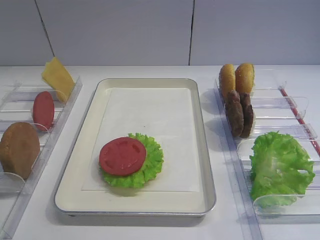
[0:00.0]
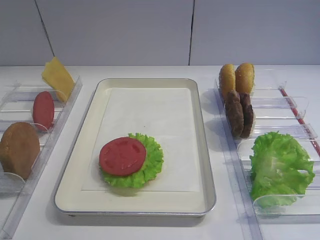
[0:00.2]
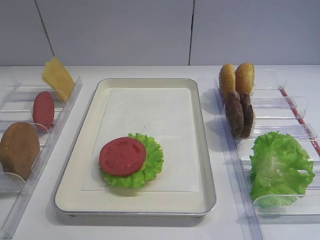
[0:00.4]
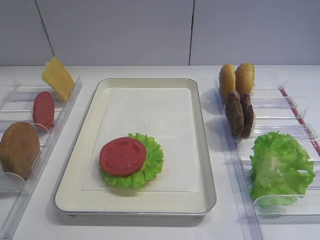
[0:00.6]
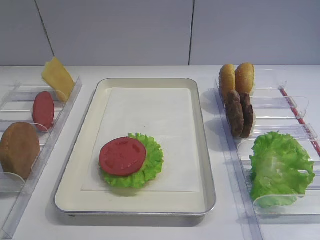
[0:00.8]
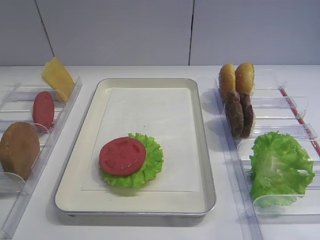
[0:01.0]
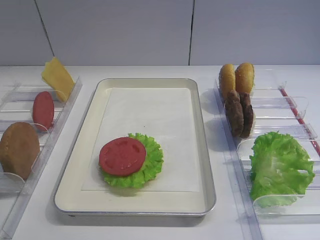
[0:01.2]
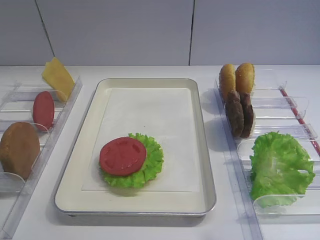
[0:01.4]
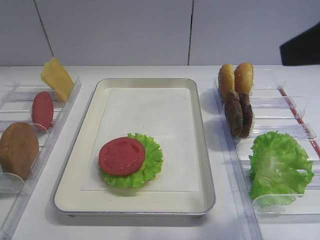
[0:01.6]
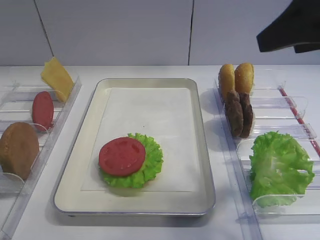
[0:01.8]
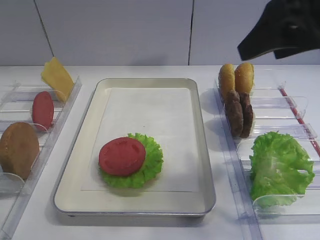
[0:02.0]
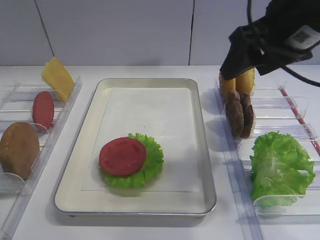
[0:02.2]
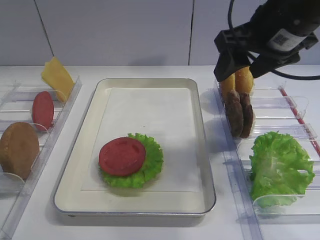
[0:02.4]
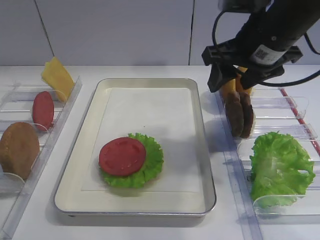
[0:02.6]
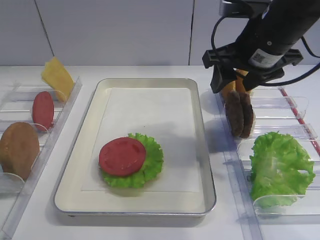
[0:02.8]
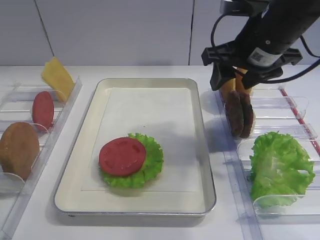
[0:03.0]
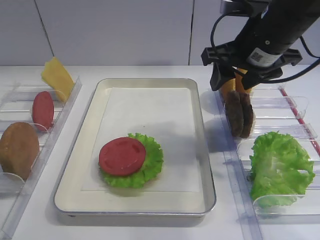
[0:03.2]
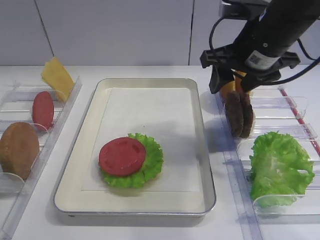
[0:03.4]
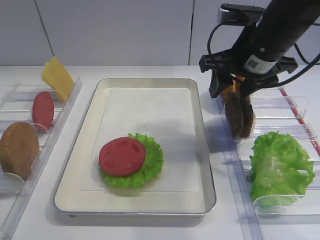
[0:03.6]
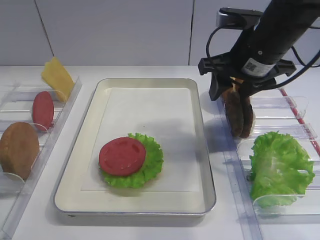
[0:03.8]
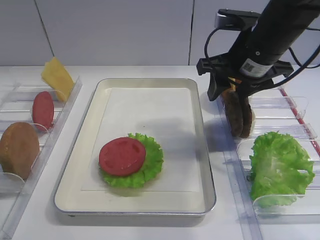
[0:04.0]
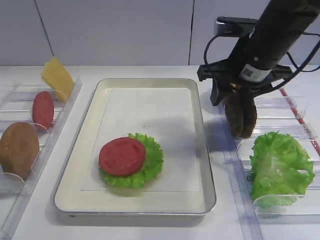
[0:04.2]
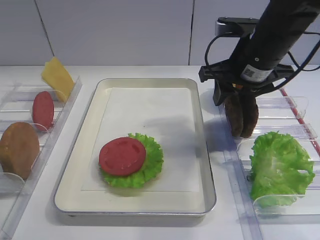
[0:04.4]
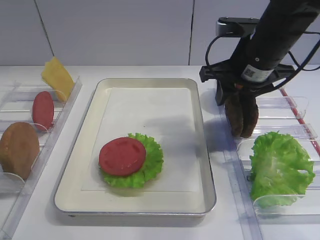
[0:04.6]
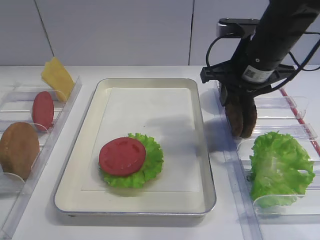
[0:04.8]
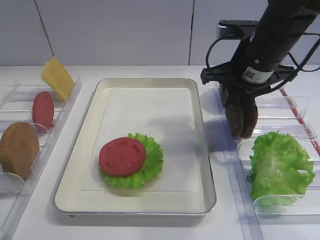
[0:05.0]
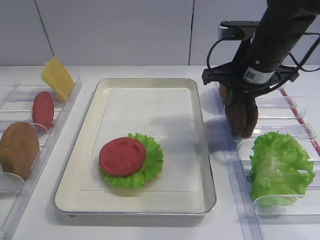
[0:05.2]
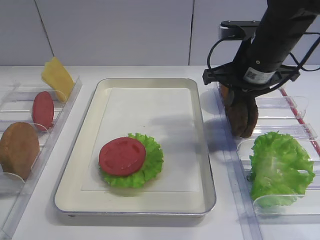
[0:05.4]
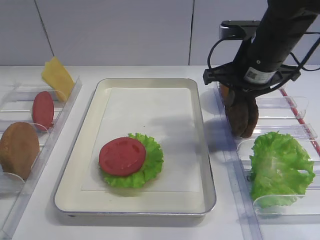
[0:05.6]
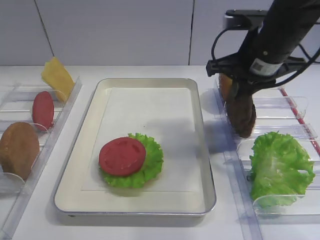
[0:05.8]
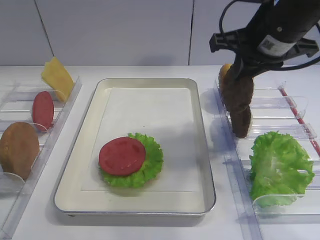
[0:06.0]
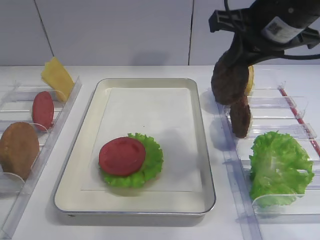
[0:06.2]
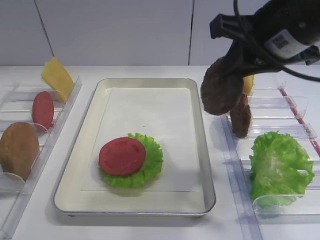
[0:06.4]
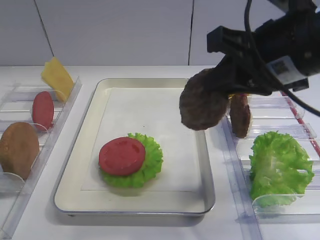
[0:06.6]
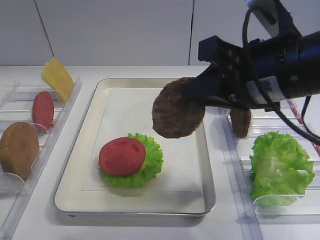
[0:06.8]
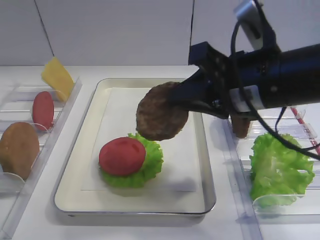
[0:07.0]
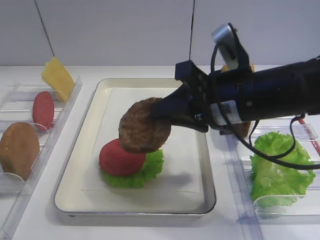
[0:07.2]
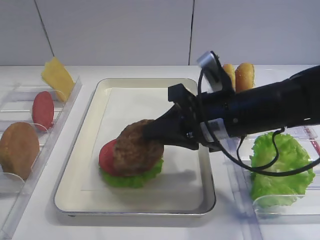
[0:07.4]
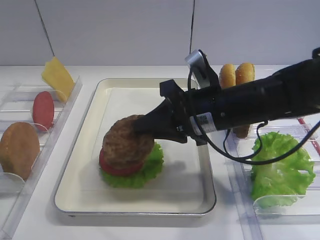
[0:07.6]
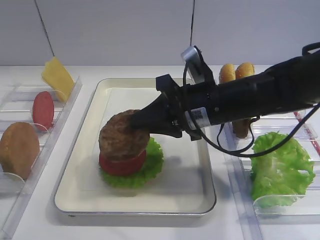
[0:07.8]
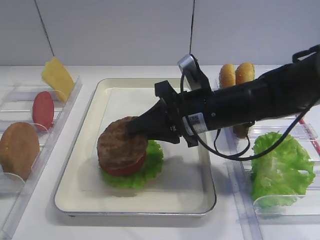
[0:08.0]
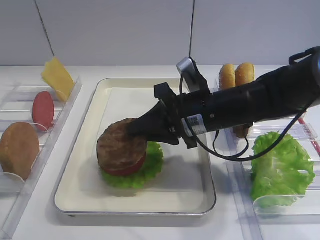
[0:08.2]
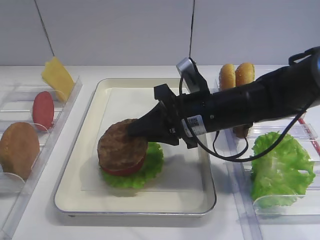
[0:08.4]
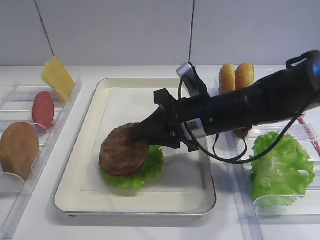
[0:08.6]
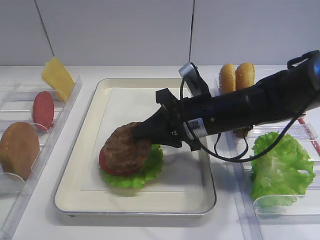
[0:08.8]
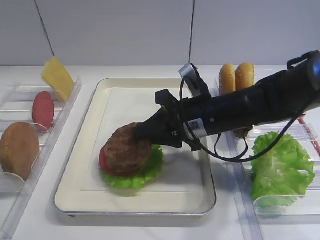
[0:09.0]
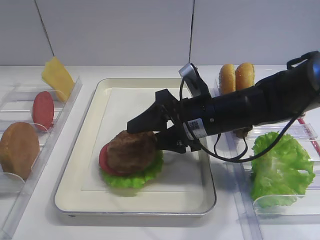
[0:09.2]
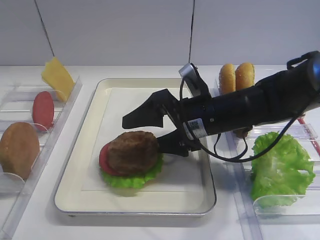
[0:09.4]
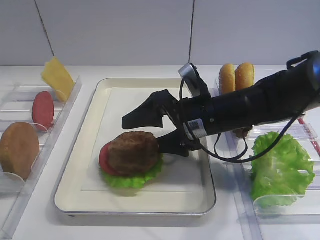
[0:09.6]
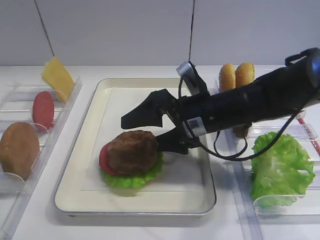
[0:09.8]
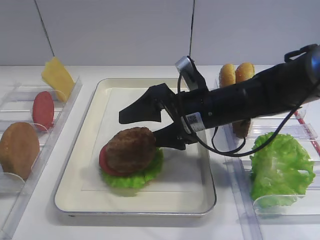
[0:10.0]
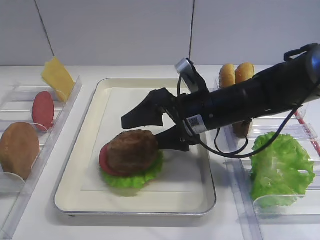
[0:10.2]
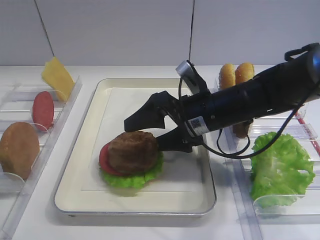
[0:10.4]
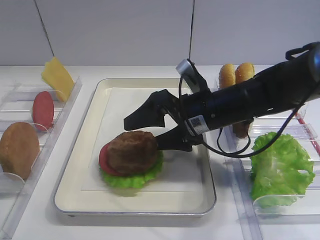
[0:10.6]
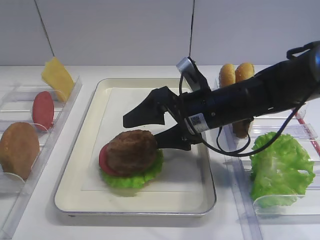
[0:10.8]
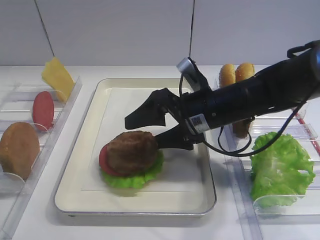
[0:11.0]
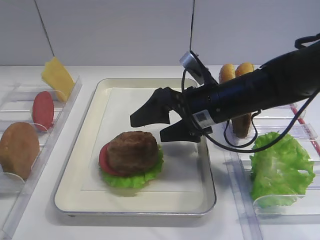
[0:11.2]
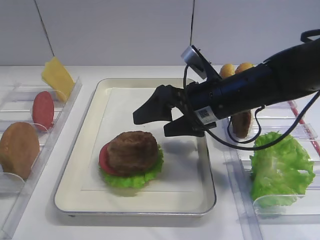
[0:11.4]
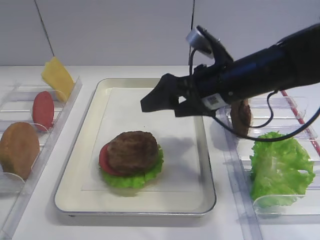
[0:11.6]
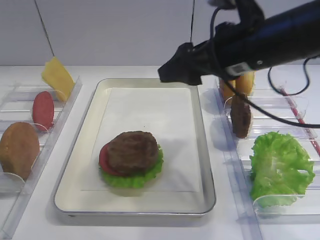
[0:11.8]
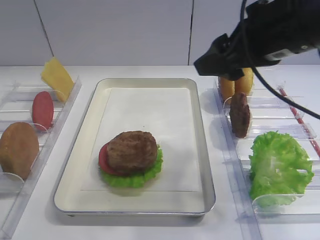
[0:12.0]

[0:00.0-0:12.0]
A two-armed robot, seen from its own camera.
Step, 0:00.0 to 0:06.2: Pick up the cutlet with the right gripper.
Step, 0:06.4 to 0:11.6: Place the cutlet on the tomato slice with the right gripper.
0:01.6 to 0:03.0: The right gripper shifts some 20 cm forward and downward.
0:03.0 to 0:04.4: The grippers stay close to where they were, moving slightly.
0:04.4 to 0:06.0: The right gripper goes roughly 5 cm upward, and closes up.
0:06.0 to 0:07.6: The right gripper shifts some 15 cm downward and to the left.
0:07.6 to 0:09.0: The grippers stay close to where they were, moving slightly.
0:09.0 to 0:10.4: The right gripper opens its fingers.
0:10.4 to 0:12.0: The right gripper moves upward and to the right, approximately 15 cm.

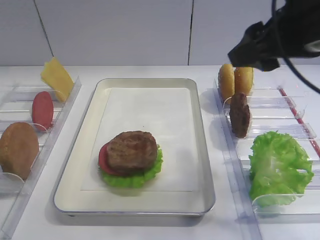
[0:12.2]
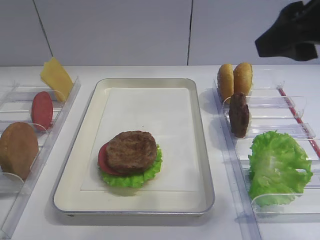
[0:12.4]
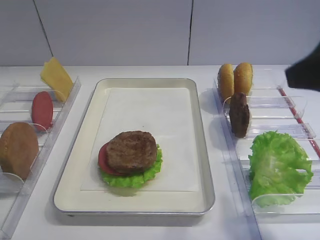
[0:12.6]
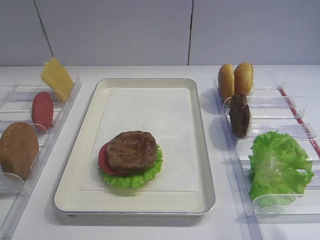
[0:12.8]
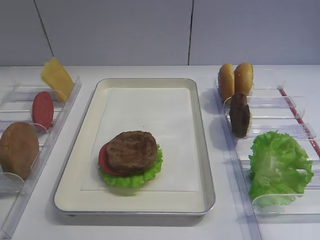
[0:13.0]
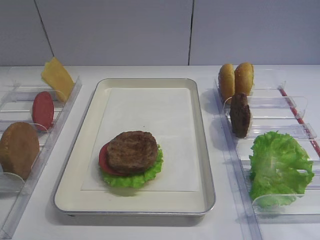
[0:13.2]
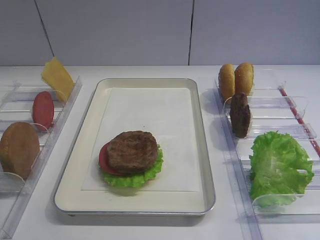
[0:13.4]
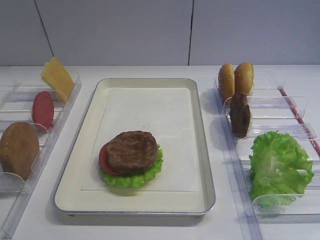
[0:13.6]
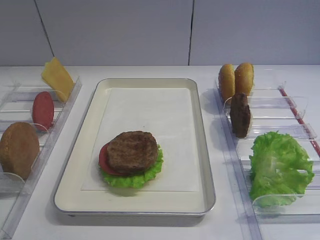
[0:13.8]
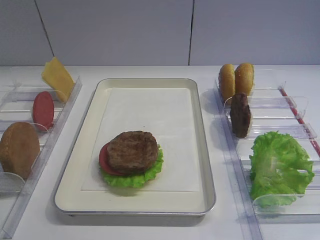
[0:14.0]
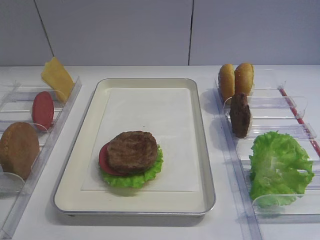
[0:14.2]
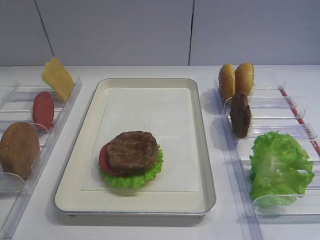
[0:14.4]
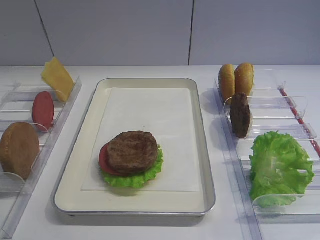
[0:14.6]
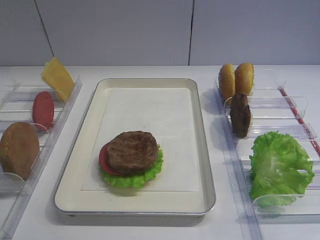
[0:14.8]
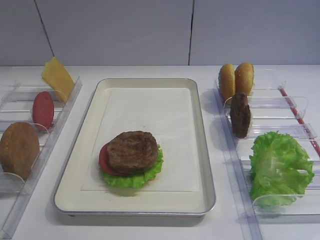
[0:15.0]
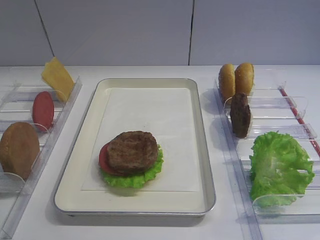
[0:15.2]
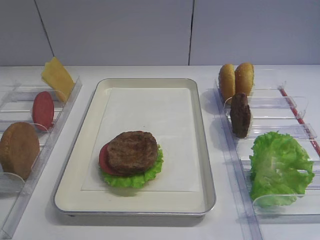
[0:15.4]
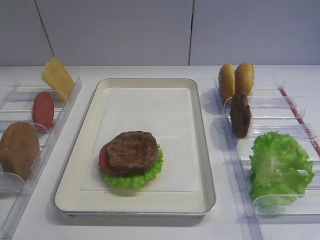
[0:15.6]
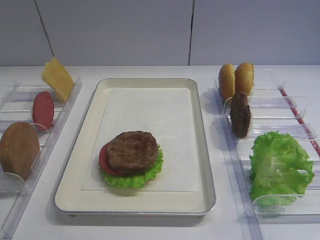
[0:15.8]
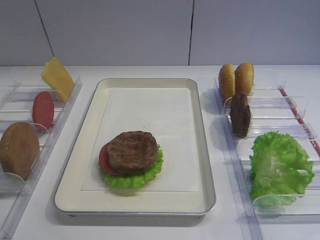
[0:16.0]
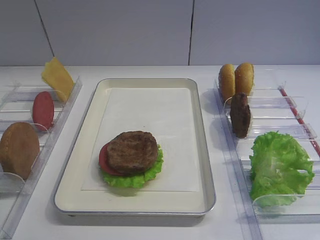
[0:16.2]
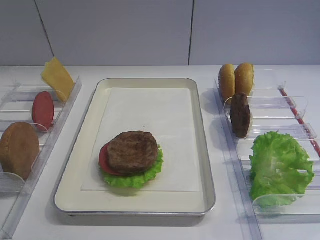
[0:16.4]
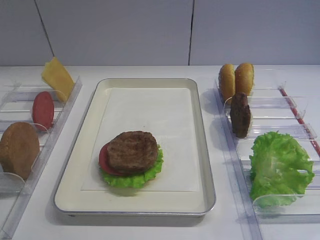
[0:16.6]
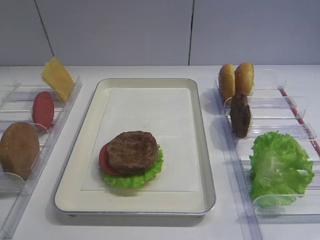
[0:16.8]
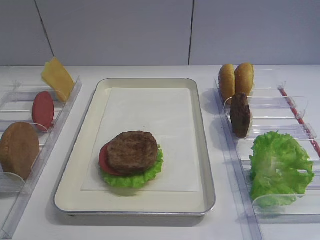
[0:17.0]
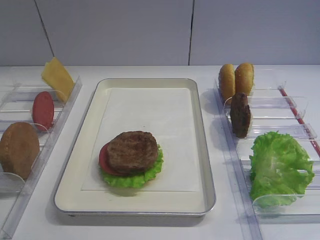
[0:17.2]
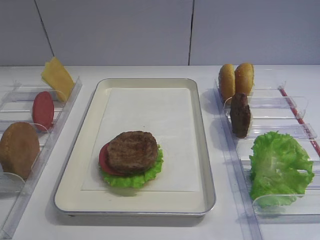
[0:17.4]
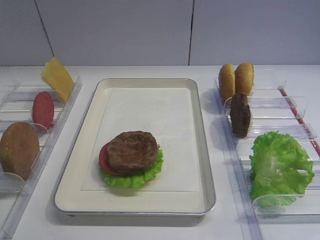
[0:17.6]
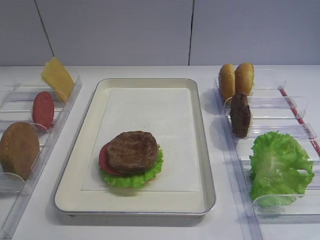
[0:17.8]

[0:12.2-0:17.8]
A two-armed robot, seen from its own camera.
0:12.2 to 0:13.6: The right gripper shifts about 20 cm backward.
0:13.6 to 0:17.8: Both grippers stay put.

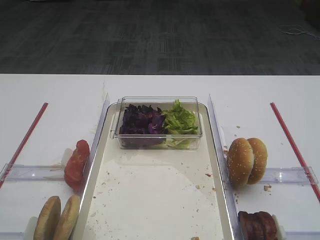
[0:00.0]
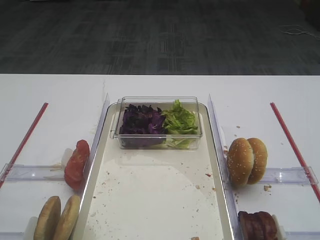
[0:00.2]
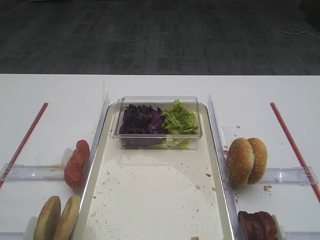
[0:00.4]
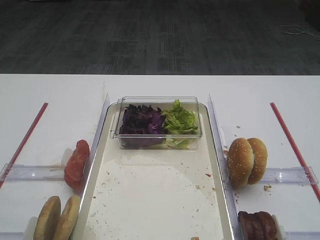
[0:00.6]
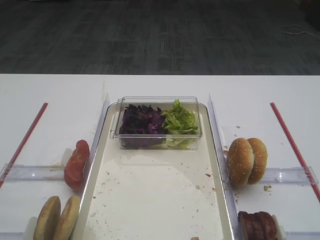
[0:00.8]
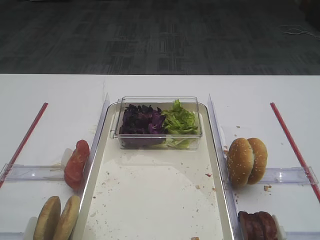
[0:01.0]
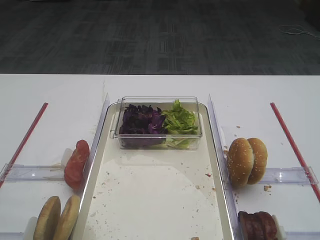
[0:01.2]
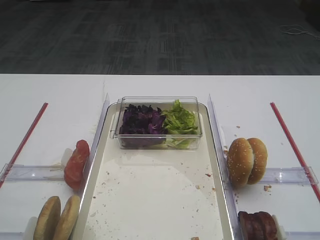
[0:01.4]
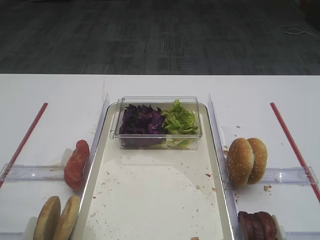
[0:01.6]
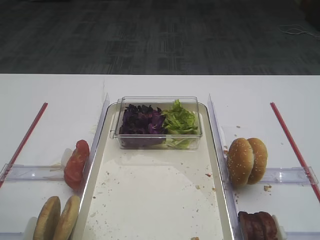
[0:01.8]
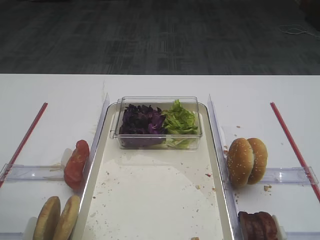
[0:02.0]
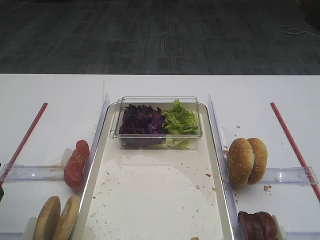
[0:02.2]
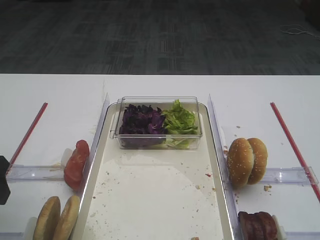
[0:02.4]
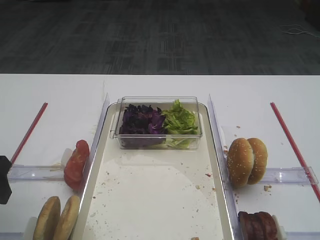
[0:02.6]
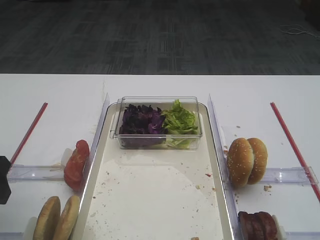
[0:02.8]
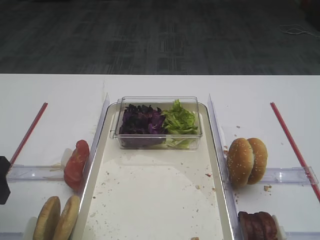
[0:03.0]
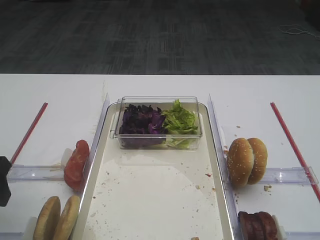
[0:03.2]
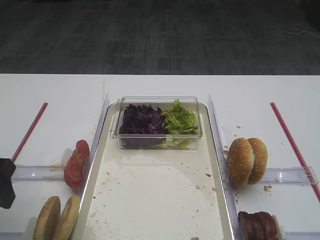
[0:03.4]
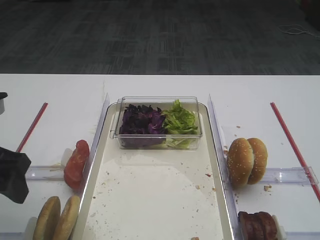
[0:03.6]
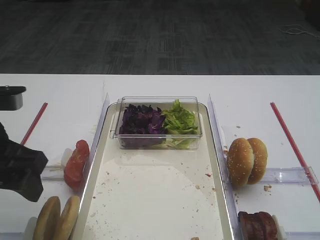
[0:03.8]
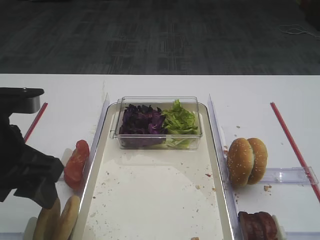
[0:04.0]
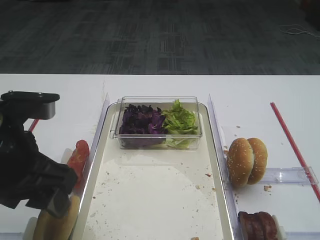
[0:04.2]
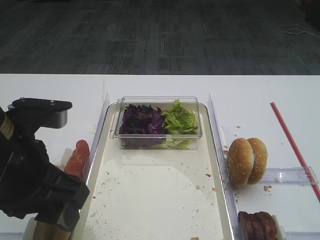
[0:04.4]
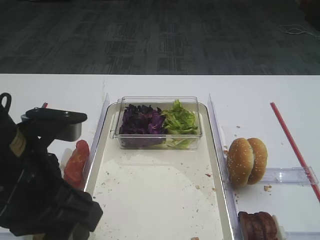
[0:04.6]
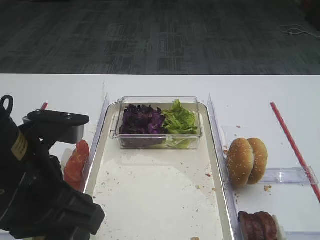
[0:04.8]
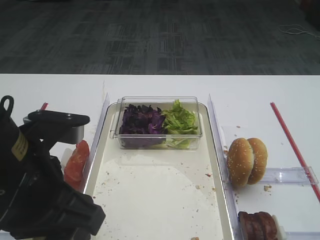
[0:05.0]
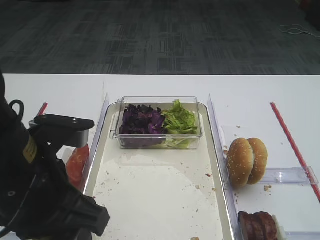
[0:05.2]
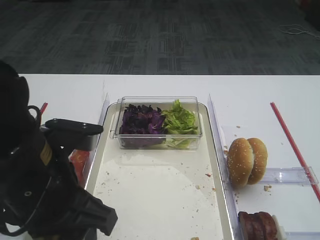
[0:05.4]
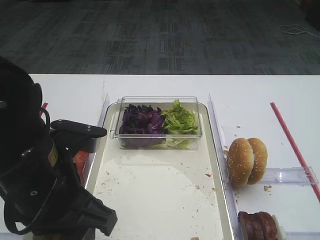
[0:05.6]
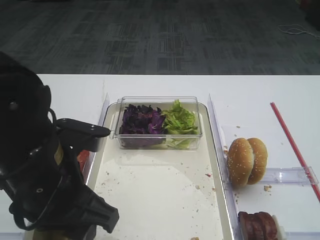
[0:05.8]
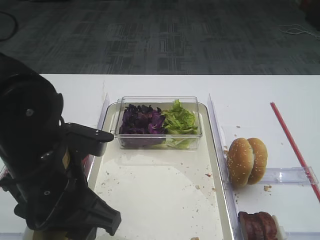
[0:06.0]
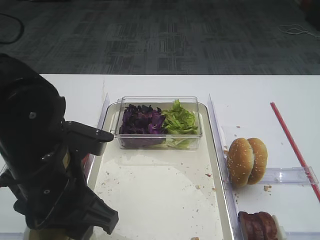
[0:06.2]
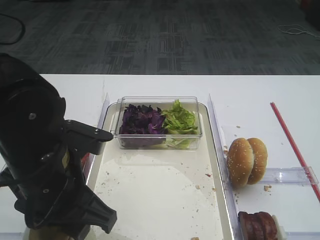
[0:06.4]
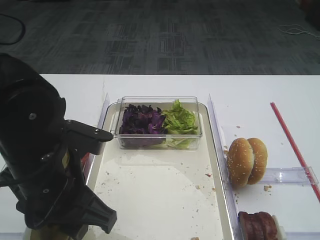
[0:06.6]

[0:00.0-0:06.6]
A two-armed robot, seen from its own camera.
0:01.6 to 0:03.2: The left gripper goes roughly 10 cm forward and downward.
0:03.2 to 0:05.0: The left gripper heads to the right, covering about 15 cm.
0:05.0 to 0:06.6: The left gripper changes place by some 5 cm.
